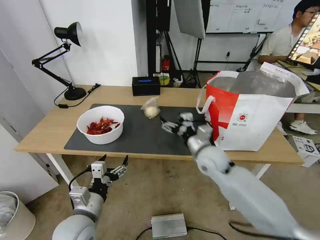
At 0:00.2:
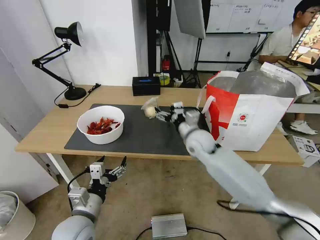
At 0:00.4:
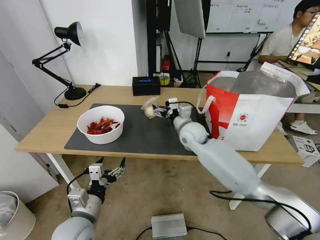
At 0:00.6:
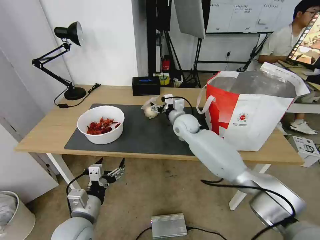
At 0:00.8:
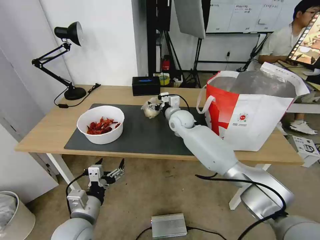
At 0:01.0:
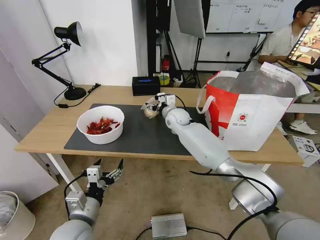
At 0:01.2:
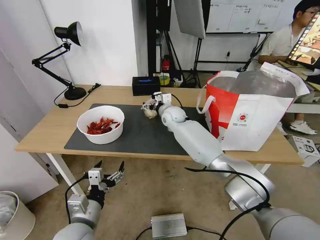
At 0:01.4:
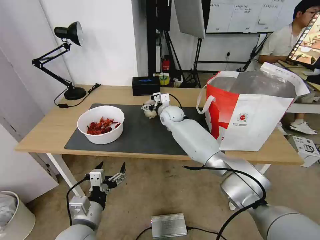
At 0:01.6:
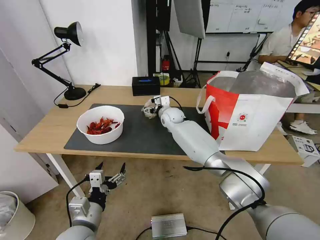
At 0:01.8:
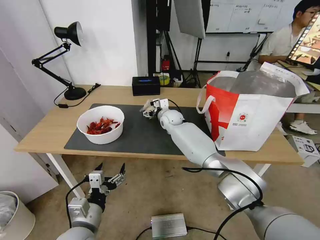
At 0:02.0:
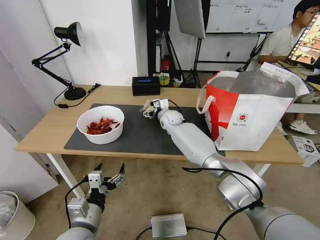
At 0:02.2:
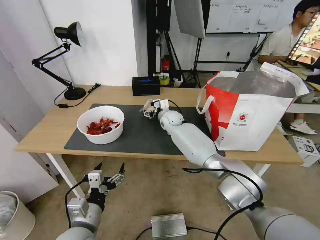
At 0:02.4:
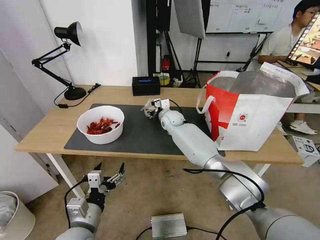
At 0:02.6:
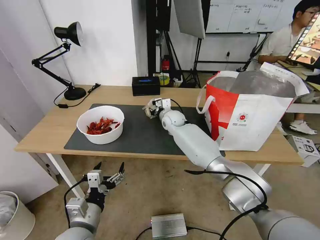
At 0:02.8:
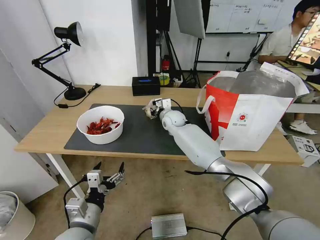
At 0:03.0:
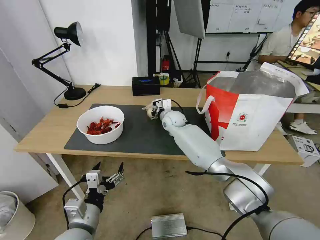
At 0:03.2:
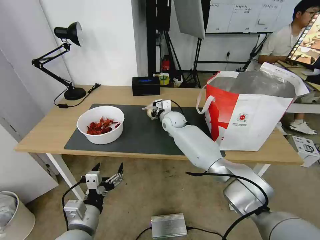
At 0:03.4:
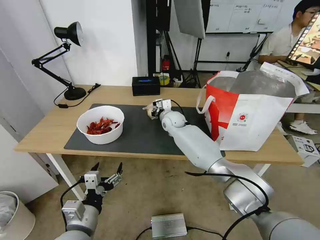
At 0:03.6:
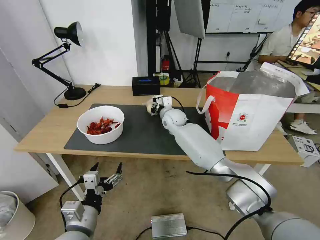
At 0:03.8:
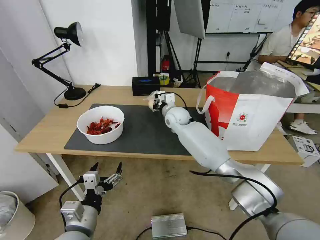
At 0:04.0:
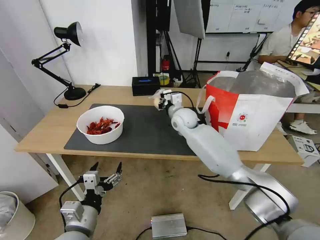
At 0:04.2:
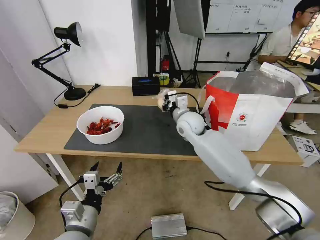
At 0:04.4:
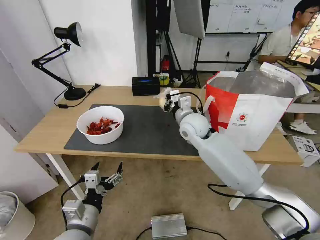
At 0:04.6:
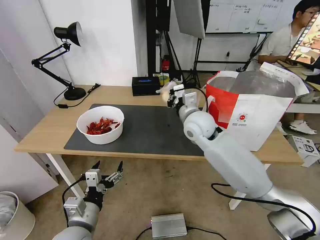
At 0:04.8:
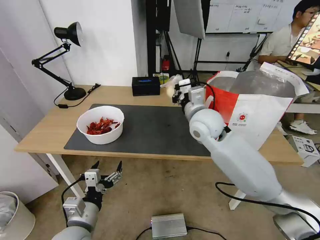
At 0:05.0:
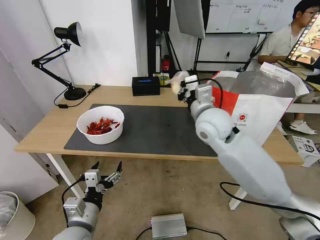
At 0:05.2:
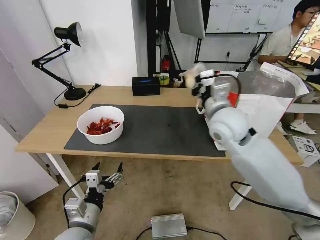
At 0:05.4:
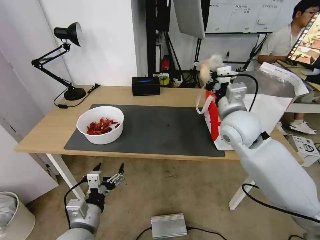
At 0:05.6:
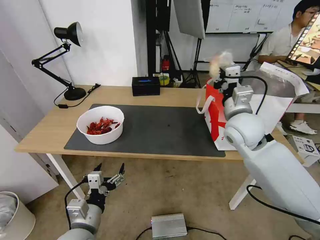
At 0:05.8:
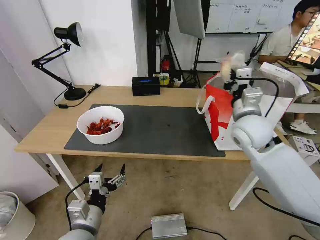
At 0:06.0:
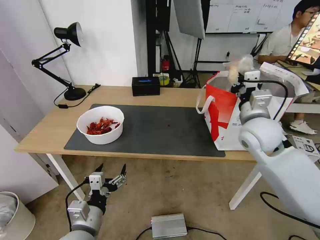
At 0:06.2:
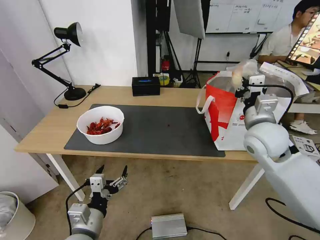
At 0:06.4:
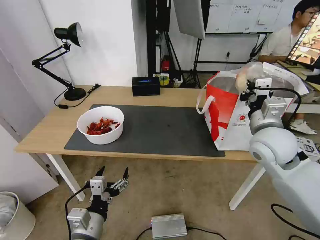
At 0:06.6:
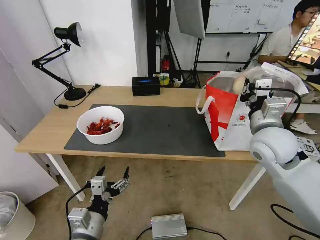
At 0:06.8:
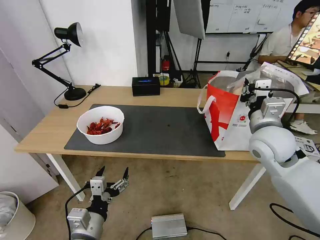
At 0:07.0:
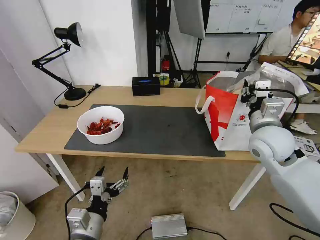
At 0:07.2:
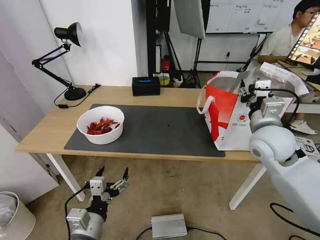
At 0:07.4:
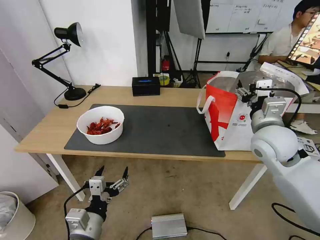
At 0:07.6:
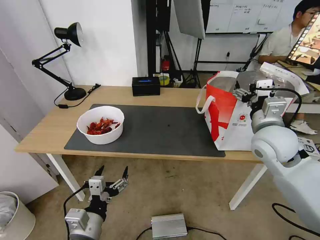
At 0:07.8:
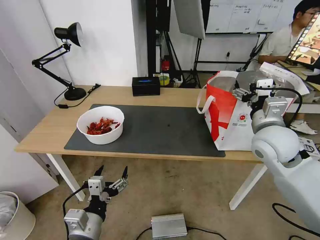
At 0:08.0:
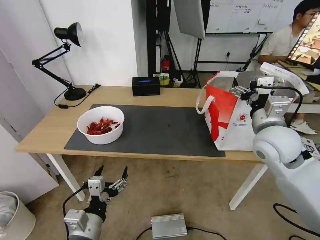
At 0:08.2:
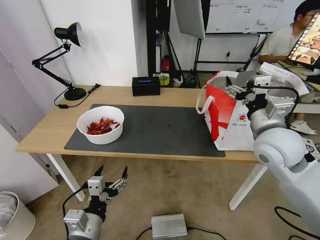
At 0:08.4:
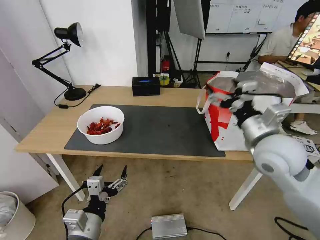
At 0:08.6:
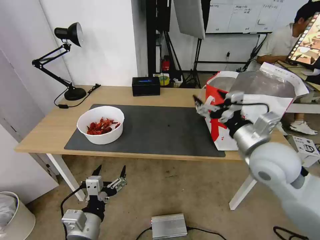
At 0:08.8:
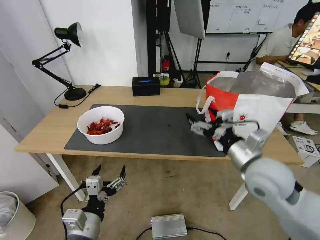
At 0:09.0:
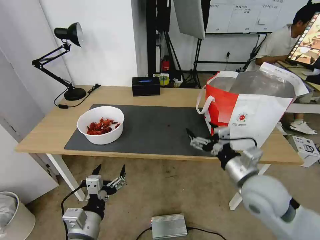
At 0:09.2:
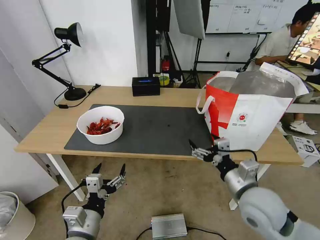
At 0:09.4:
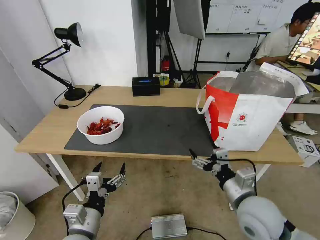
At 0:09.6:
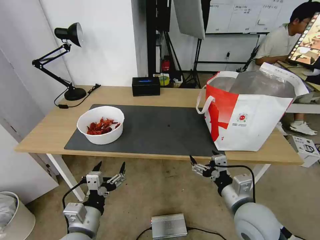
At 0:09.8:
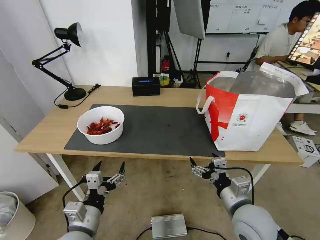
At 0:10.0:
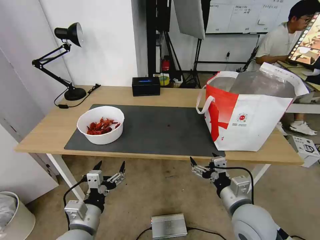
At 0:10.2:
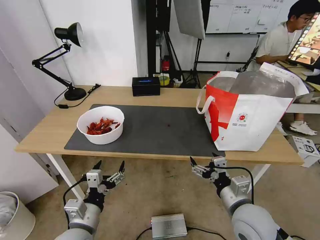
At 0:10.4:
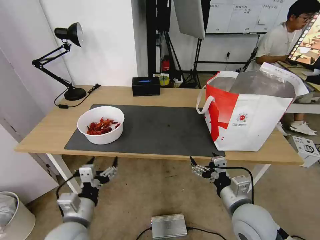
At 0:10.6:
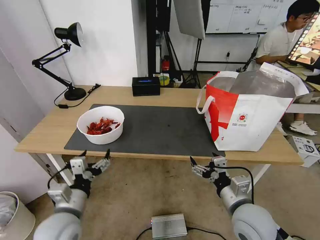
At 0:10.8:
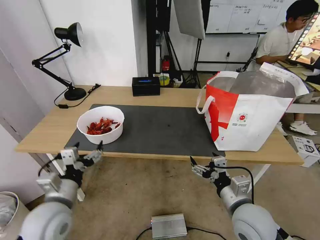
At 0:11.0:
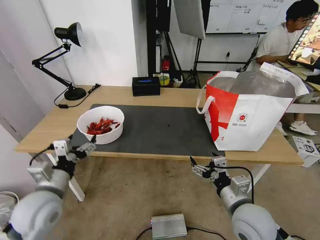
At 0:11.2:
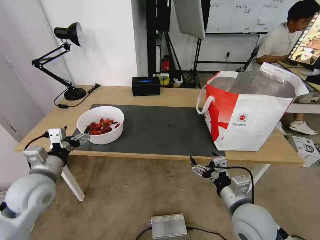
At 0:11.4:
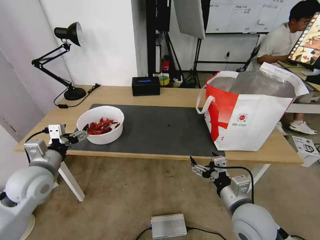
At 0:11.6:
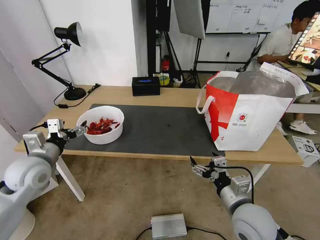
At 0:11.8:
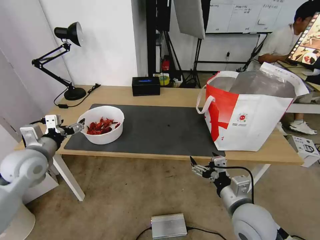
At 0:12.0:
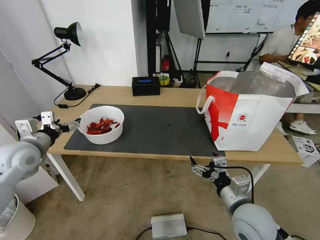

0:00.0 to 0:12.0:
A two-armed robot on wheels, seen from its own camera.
Task of the whole recording: Pick up the trash from the table and place it into the takeout bag.
0:00.0 to 0:01.6: The right gripper is displaced forward and to the left by some 25 cm.
0:01.6 to 0:03.0: The right gripper closes.
0:03.0 to 0:04.4: The right gripper travels backward, upward and to the right by about 15 cm.
0:04.4 to 0:06.0: The right gripper shifts roughly 20 cm to the right and backward.
0:06.0 to 0:07.6: The right gripper opens.
0:07.6 to 0:09.0: The right gripper travels backward and downward by about 10 cm.
0:09.0 to 0:10.4: The right gripper shifts roughly 5 cm downward.
0:10.4 to 0:12.0: The left gripper shifts approximately 25 cm forward, to the left and upward.

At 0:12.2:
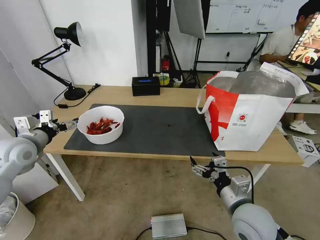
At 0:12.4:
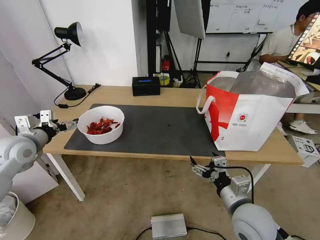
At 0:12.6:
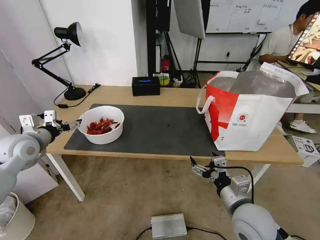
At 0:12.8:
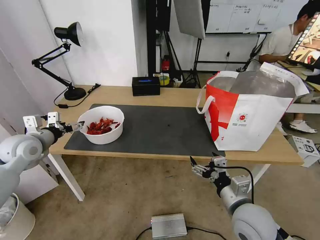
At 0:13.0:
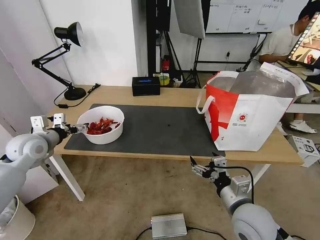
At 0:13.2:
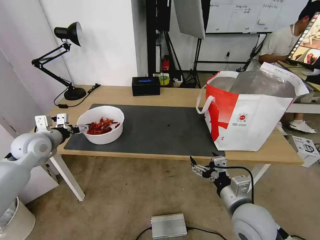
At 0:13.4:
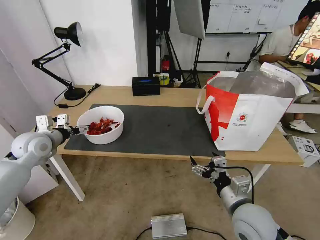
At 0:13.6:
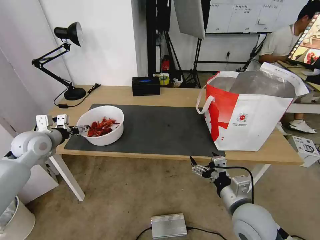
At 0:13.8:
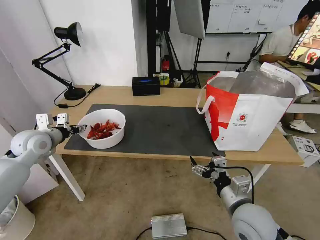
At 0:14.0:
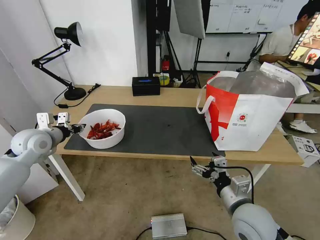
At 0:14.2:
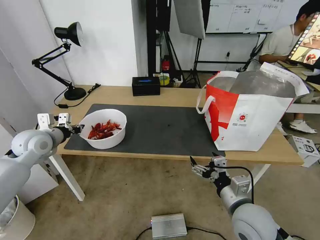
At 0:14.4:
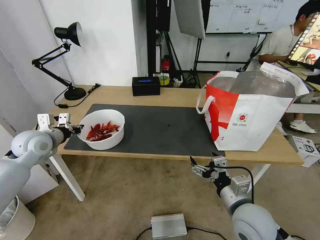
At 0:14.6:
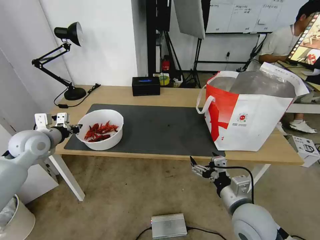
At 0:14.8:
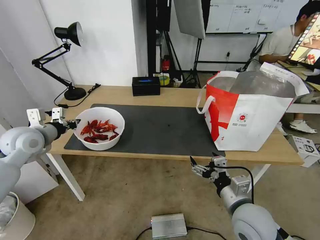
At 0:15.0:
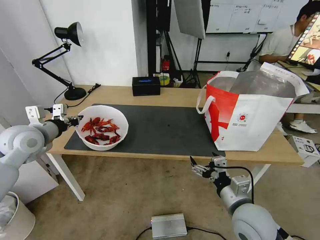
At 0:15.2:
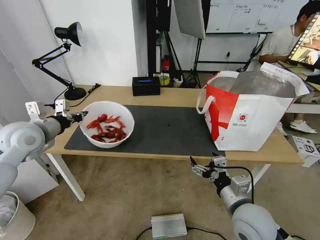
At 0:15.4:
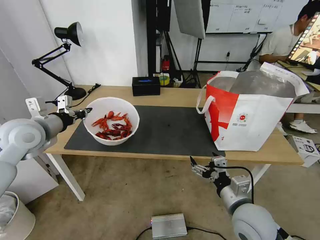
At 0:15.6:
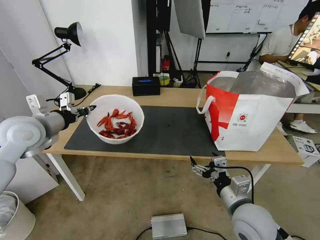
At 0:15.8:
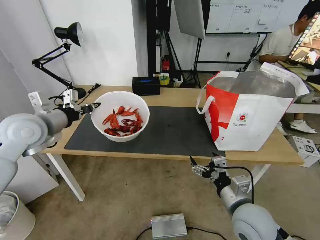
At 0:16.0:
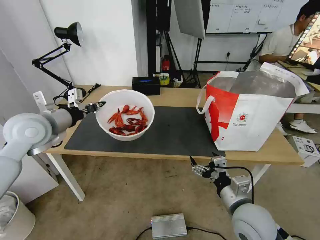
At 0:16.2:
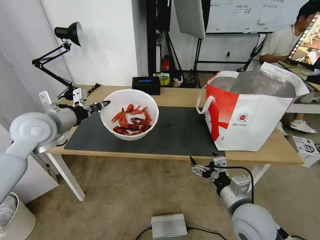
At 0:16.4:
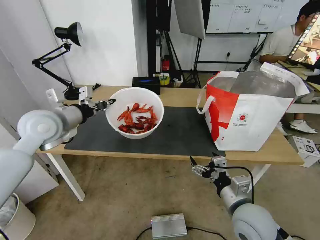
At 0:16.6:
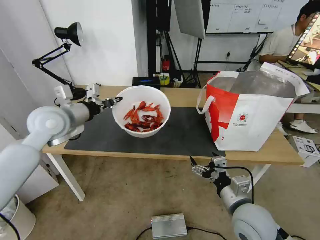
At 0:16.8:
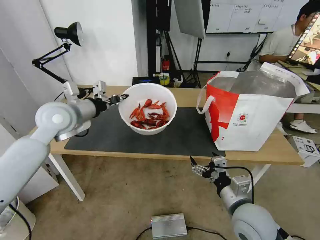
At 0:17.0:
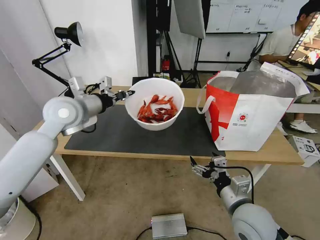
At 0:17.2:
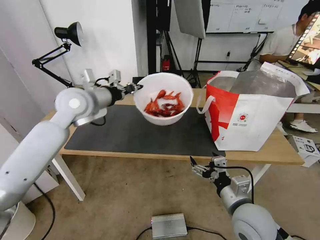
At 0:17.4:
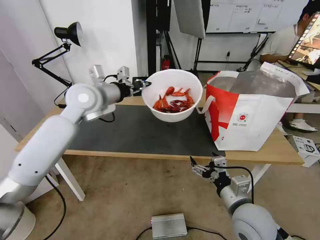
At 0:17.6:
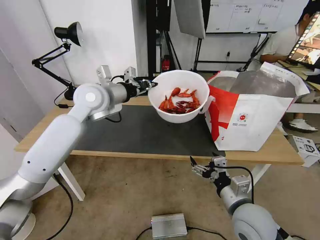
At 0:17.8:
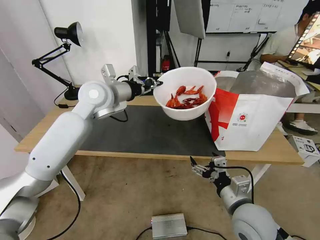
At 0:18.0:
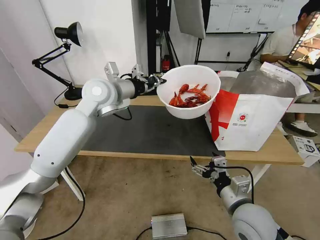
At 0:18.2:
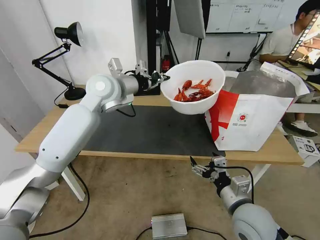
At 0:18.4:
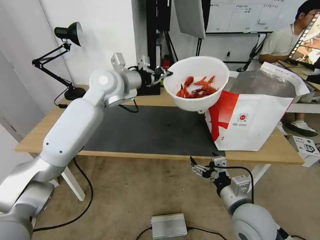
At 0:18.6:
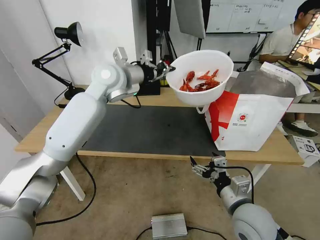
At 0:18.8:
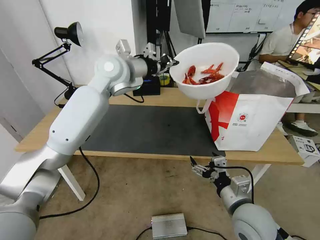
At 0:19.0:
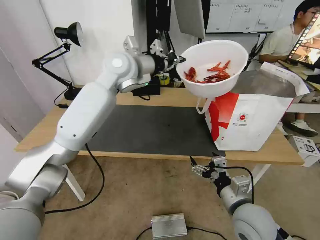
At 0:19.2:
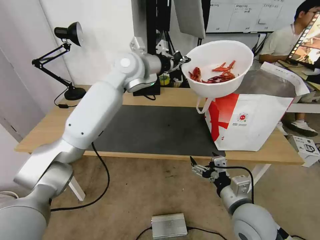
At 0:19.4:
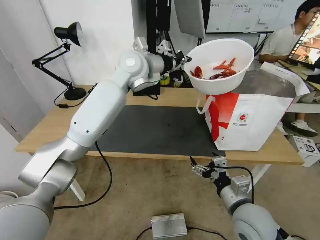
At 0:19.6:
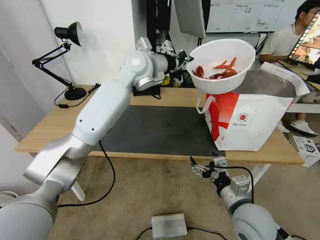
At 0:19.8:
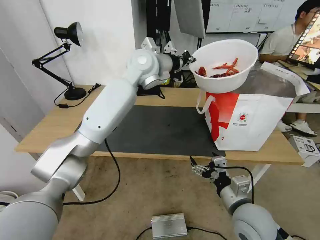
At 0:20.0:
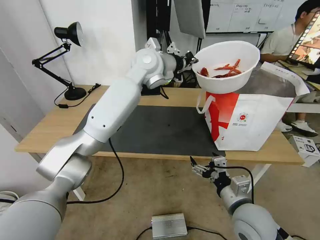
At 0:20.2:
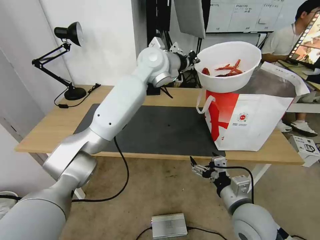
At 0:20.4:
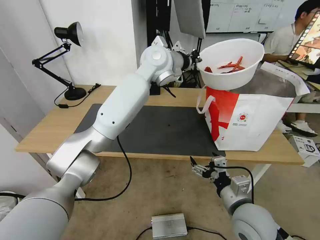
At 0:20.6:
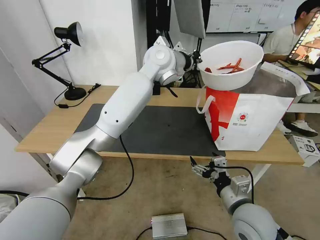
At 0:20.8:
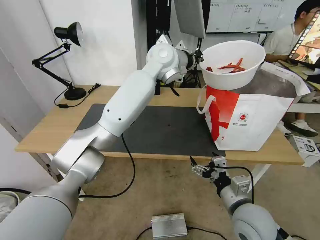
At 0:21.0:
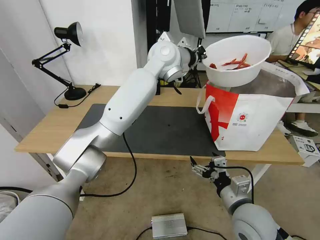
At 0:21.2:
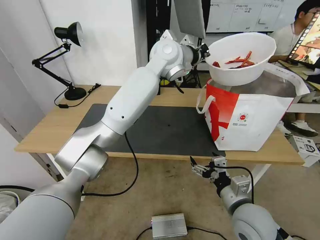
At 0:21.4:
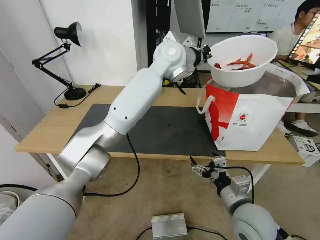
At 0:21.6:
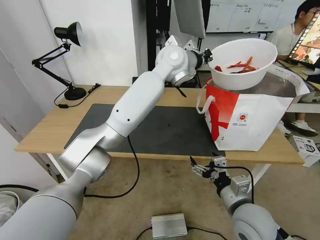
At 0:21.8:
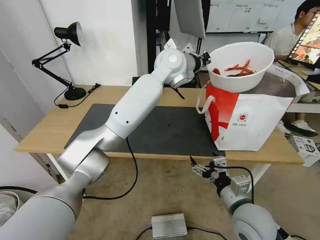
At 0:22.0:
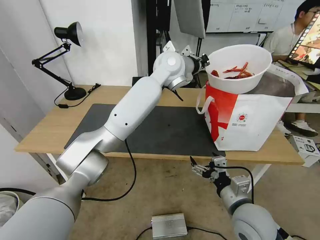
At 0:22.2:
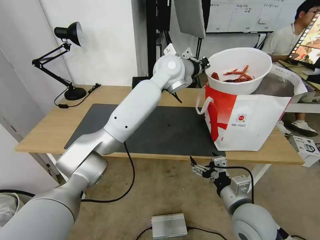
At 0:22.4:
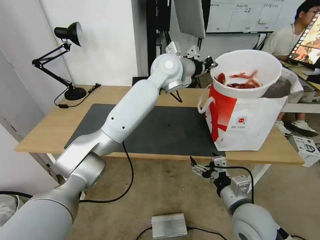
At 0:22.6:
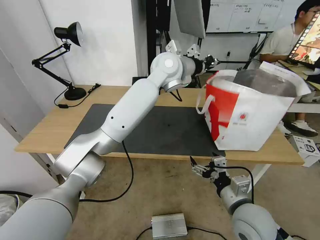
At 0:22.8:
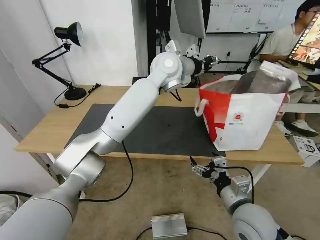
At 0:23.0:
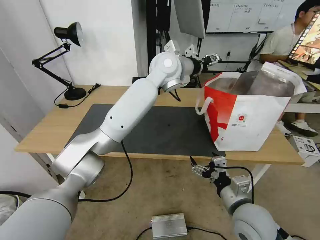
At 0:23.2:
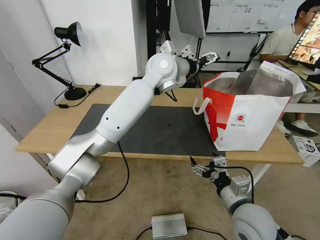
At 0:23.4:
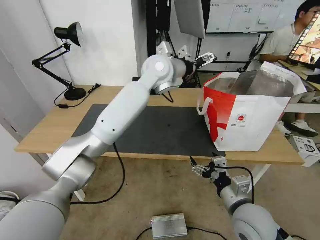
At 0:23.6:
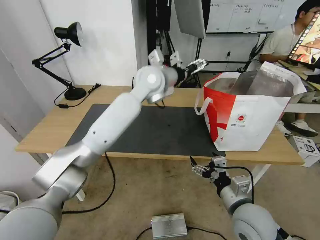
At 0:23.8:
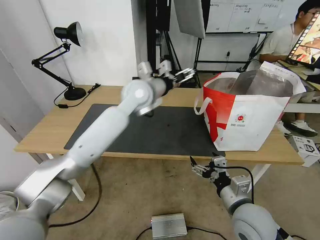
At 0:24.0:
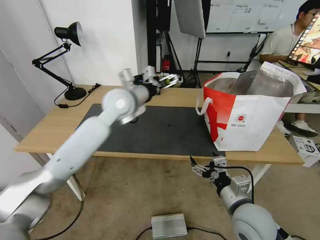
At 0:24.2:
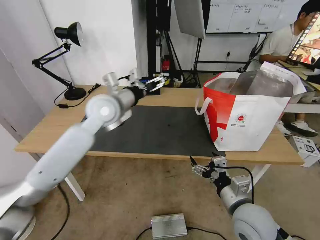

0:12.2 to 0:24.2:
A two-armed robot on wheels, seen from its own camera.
Task of the whole recording: Pick up the trash from the table and place it into the takeout bag.
0:12.2 to 0:13.8: The left gripper closes.
0:13.8 to 0:15.2: The left gripper goes about 5 cm upward, and closes up.
0:15.2 to 0:16.6: The left gripper goes some 10 cm to the right.
0:16.6 to 0:18.2: The left gripper is displaced to the right and forward by some 15 cm.
0:18.2 to 0:19.8: The left gripper moves to the right and forward, roughly 10 cm.
0:19.8 to 0:21.2: The left gripper goes some 5 cm to the right.
0:21.2 to 0:22.6: There are only small adjustments of the grippers.
0:22.6 to 0:24.2: The left gripper shifts approximately 20 cm to the left, backward and downward, and opens.
